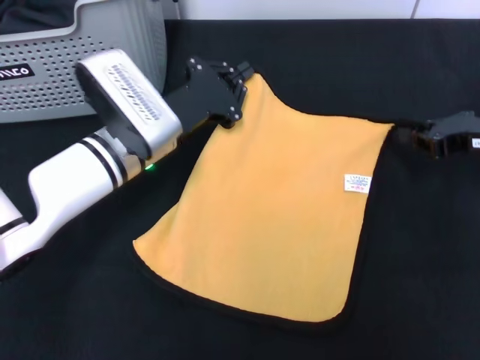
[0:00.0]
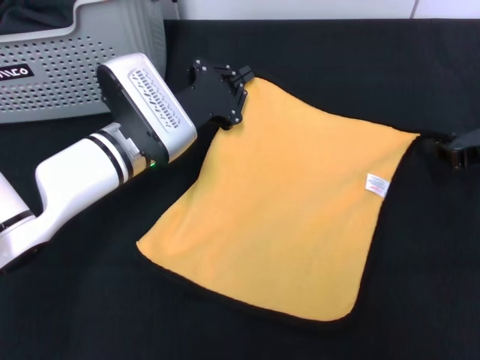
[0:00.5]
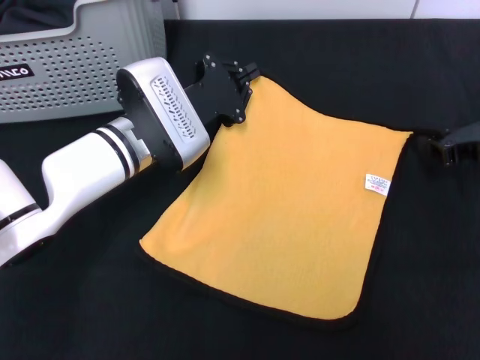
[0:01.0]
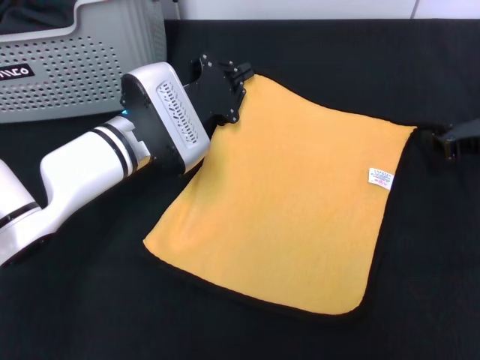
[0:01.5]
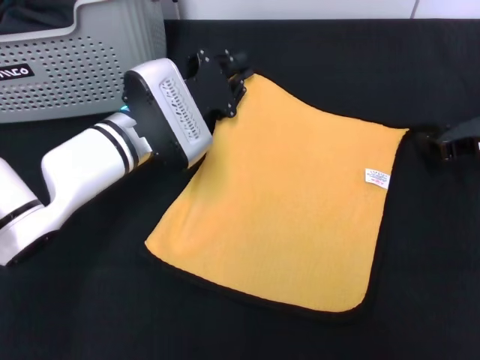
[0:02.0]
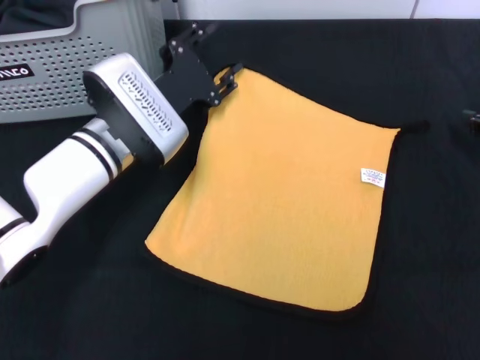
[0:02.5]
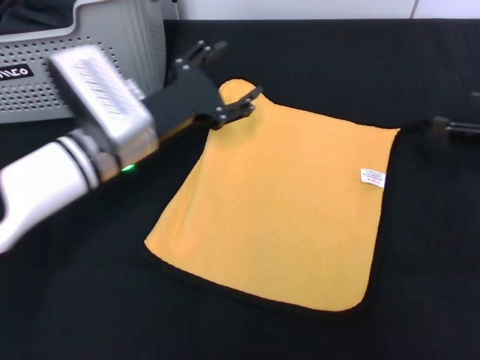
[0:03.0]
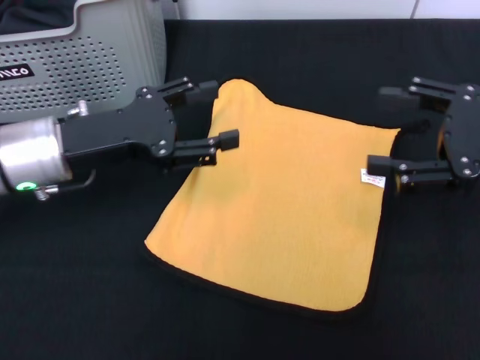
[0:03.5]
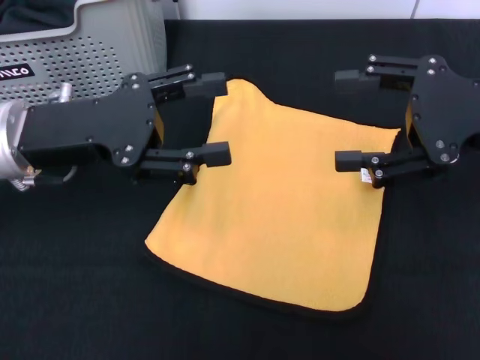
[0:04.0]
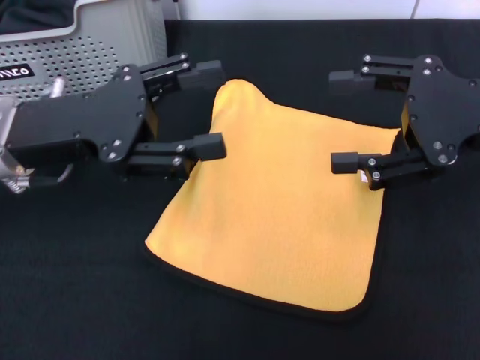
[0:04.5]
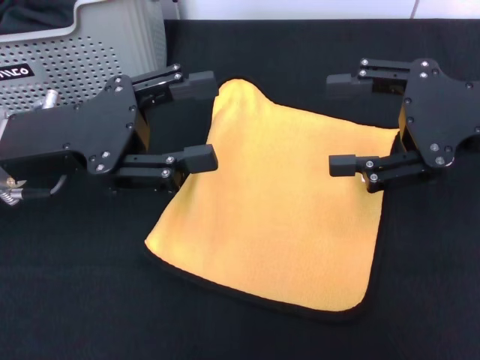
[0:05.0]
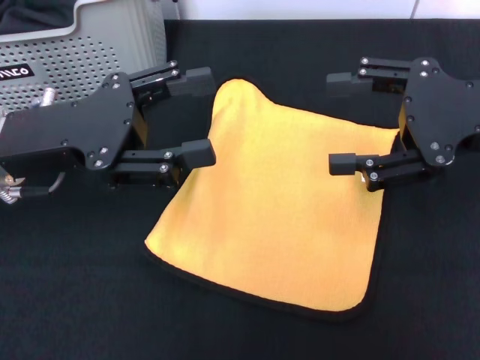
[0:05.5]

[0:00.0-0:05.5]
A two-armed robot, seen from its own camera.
Task of the whole recording: pick up the towel from the storage box and lay it flat on the black tablecloth.
Step, 0:00.0 to 0:02.0: Spread the towel flat with the right gripper.
0:02.0 to 0:03.5: The left gripper is displaced to the left, backward and upward by about 10 cm, and opens up; the right gripper shifts some 10 cm upward and backward, and opens its fingers.
0:03.5 to 0:05.5: The right gripper ends up approximately 5 cm from where it was. The left gripper shifts by approximately 5 cm.
